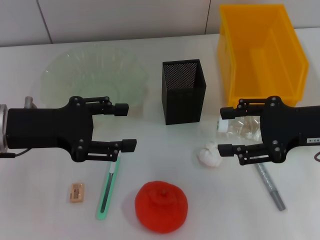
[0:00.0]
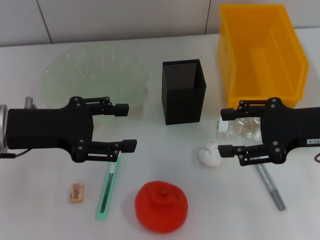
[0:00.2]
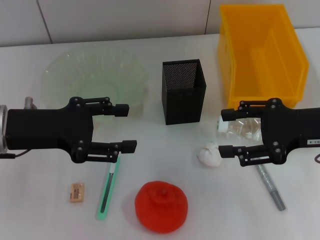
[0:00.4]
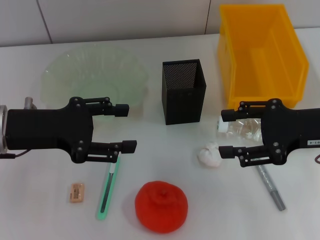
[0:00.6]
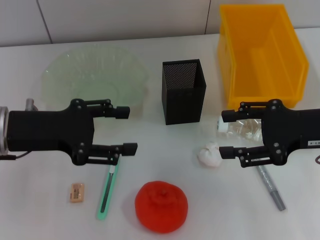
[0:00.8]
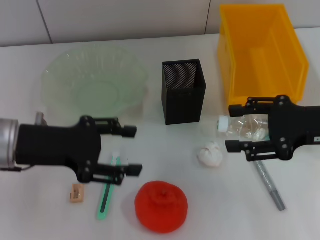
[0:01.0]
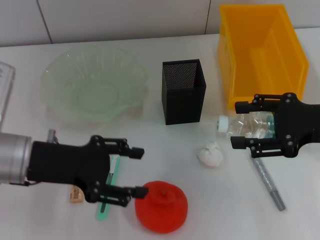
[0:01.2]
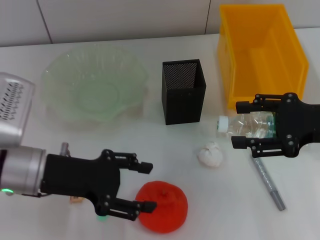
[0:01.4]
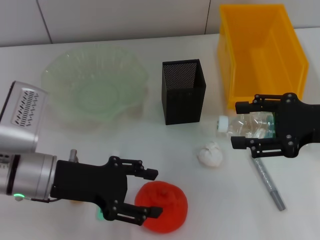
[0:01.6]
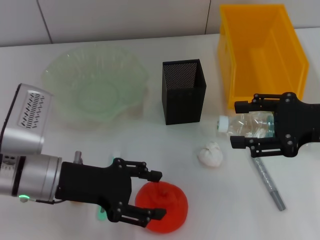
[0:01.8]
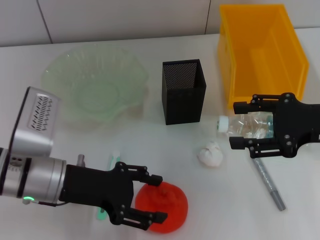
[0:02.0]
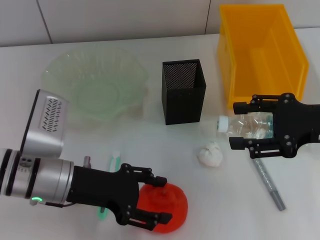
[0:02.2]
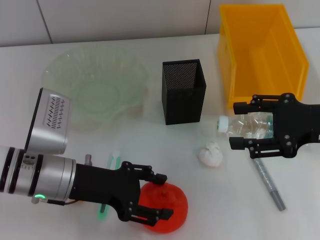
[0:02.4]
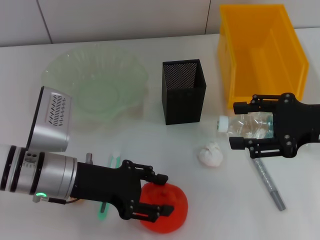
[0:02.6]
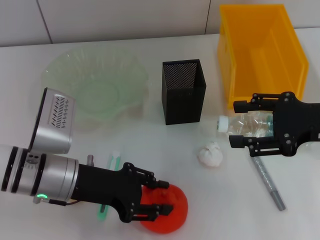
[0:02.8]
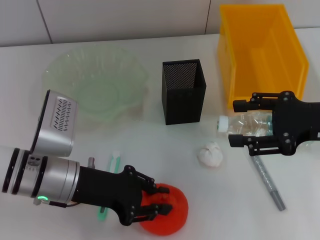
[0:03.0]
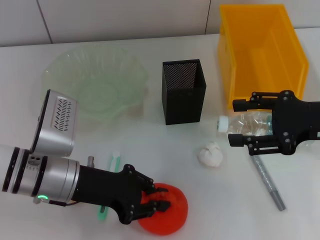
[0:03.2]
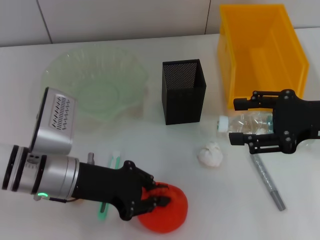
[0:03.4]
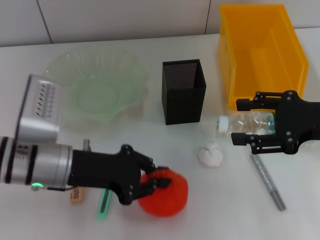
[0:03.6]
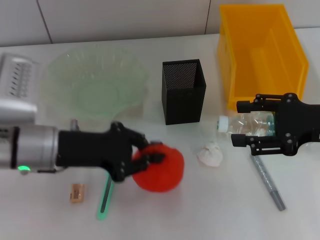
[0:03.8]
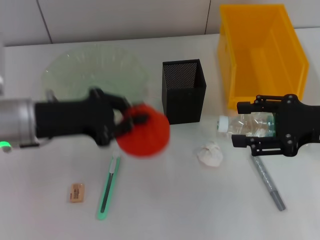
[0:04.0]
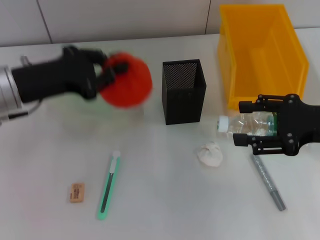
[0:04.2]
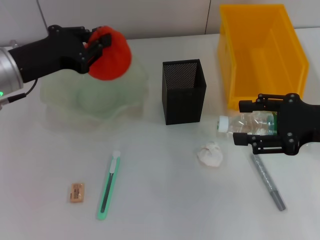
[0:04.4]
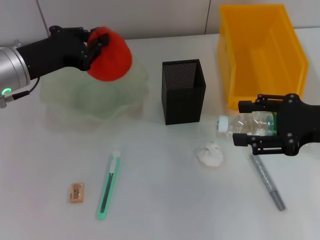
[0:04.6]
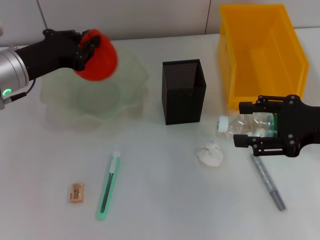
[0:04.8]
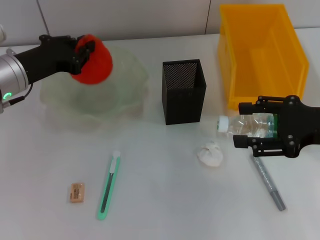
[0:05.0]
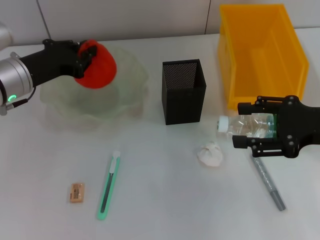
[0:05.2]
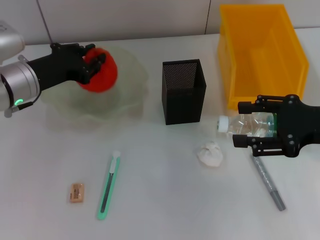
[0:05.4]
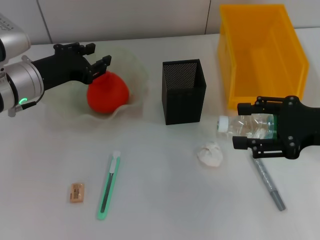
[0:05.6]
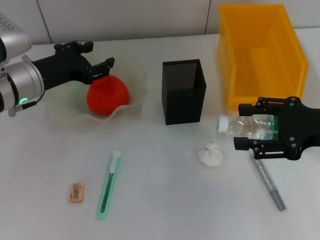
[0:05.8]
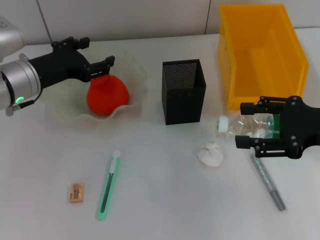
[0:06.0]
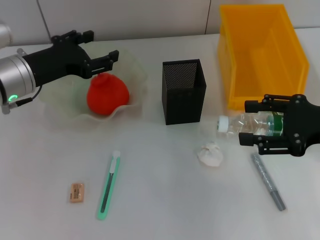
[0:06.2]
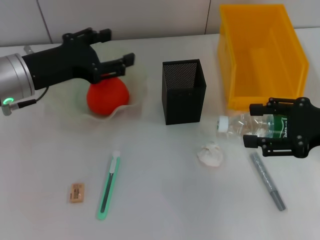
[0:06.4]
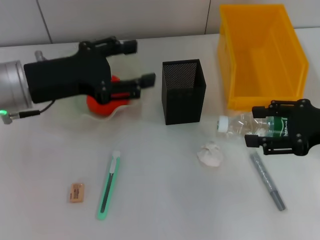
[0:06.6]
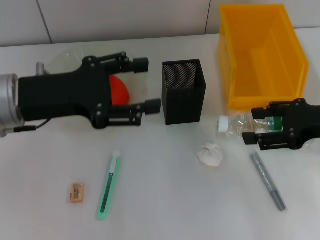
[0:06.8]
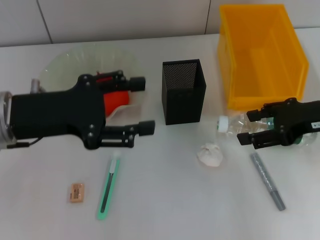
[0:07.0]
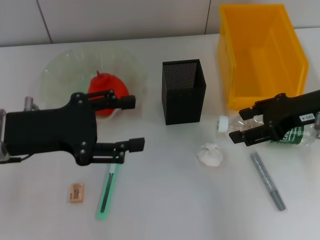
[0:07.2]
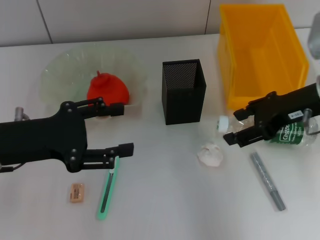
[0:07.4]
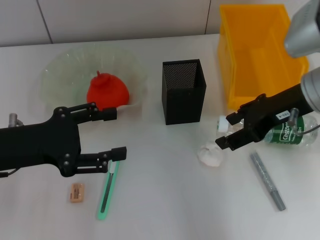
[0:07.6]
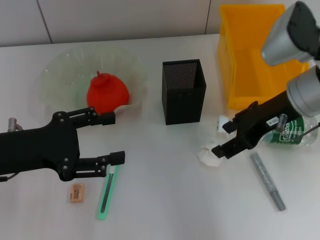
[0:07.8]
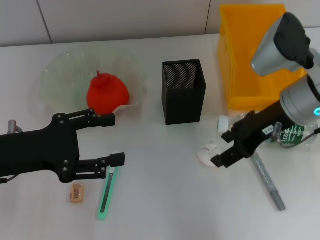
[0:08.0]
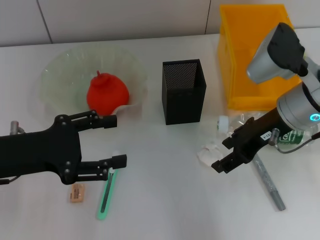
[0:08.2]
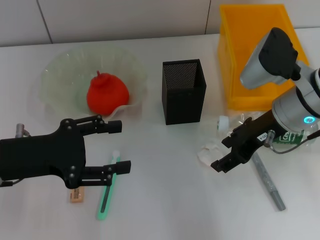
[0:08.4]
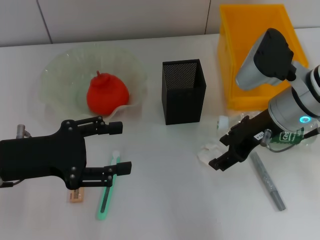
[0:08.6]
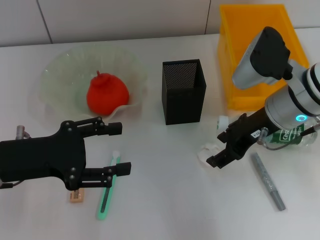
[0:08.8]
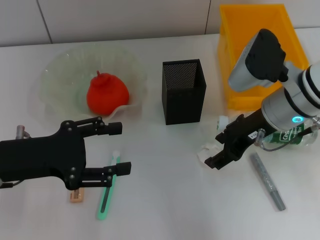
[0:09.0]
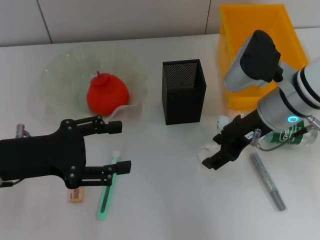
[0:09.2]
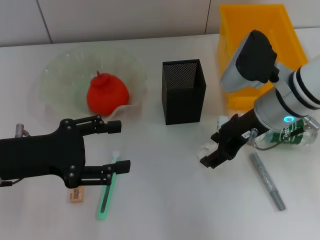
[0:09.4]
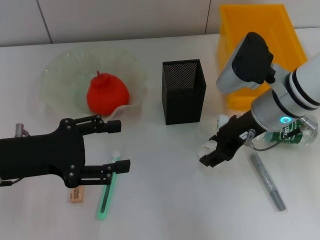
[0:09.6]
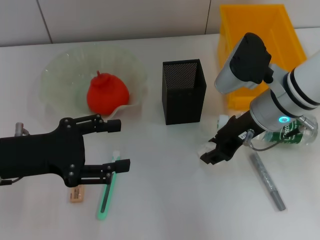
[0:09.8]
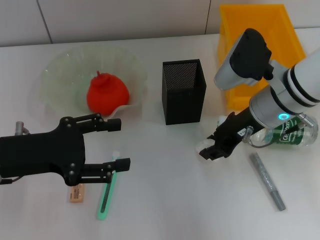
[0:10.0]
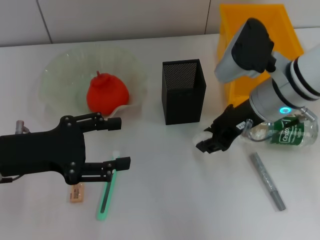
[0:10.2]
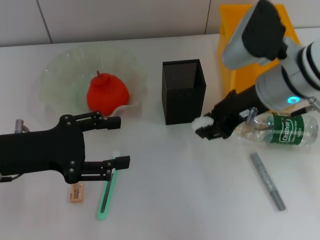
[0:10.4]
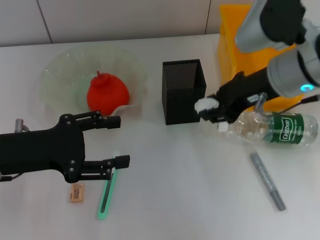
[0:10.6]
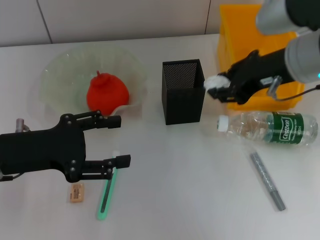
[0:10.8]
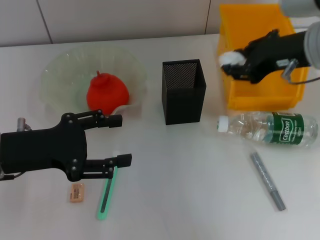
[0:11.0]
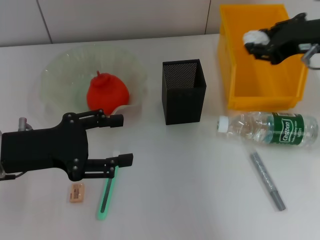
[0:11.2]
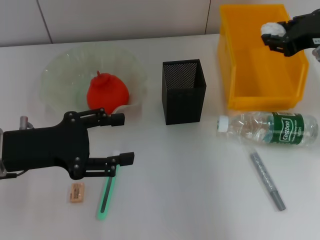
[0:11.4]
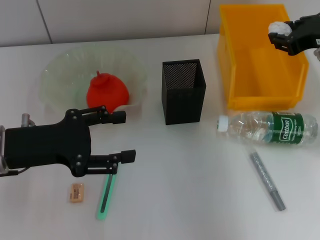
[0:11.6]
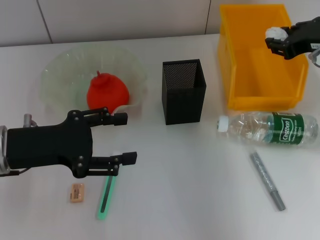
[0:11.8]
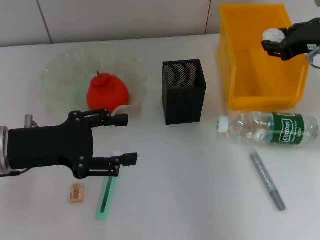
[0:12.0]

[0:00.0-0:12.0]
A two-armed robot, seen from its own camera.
Step, 0:00.0 to 0:03.0: Grab the orange with the left hand.
Step, 0:03.2 to 0:05.8: Place the orange into the fruit bowl with the left hand.
Step, 0:06.0 to 0:09.8: Grab the paper ball with the right hand.
0:00.0 to 0:01.6: The left gripper moves downward, approximately 5 cm.
0:01.6 to 0:03.0: The left gripper closes up.
0:03.0 to 0:04.4: The left gripper heads upward, forward and to the left, covering about 10 cm, and closes its fingers.
0:04.4 to 0:06.0: The left gripper opens.
0:06.0 to 0:07.6: The right gripper shifts approximately 10 cm forward and to the left; the left gripper travels backward by some 10 cm.
0:07.6 to 0:09.0: The right gripper changes place by about 5 cm.
0:09.0 to 0:10.4: The right gripper closes.
0:10.4 to 0:12.0: The right gripper moves to the right, approximately 10 cm.

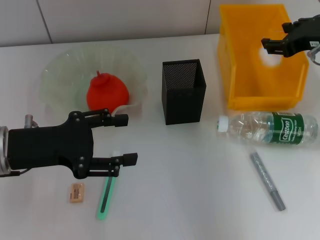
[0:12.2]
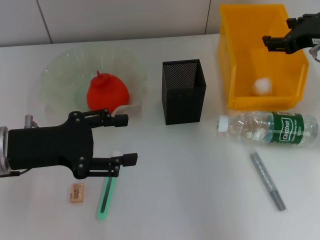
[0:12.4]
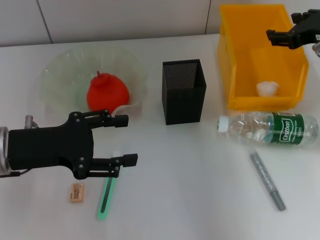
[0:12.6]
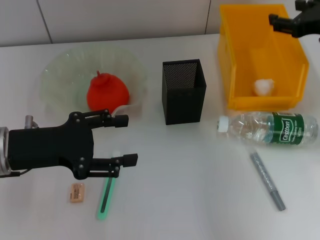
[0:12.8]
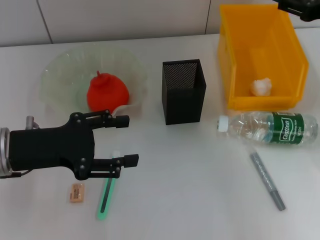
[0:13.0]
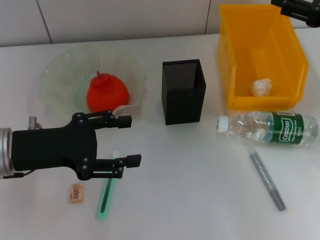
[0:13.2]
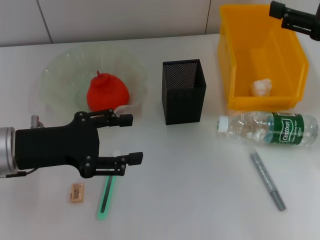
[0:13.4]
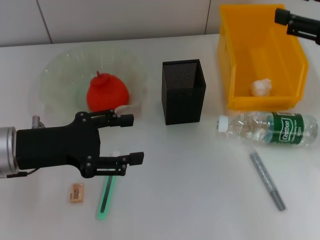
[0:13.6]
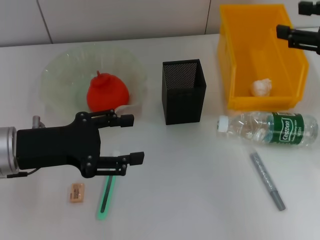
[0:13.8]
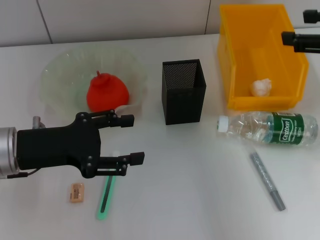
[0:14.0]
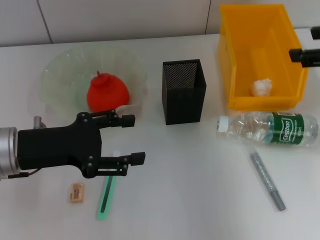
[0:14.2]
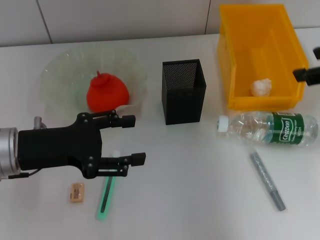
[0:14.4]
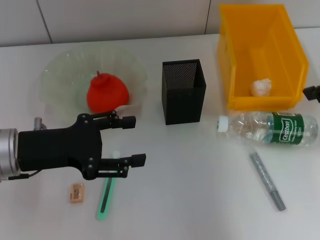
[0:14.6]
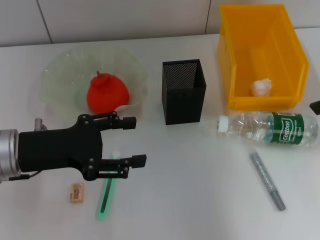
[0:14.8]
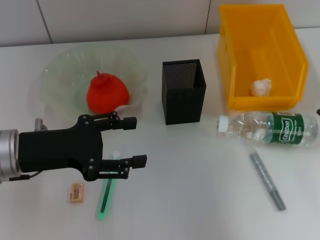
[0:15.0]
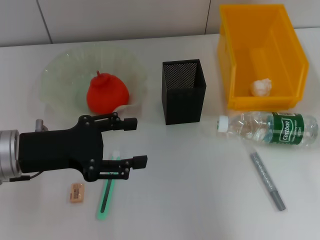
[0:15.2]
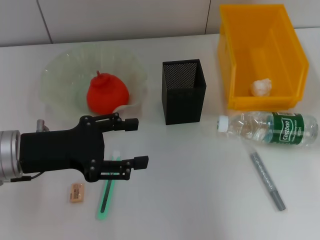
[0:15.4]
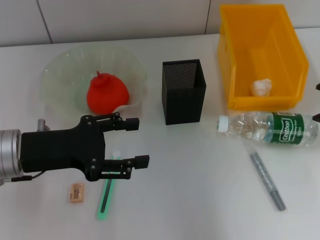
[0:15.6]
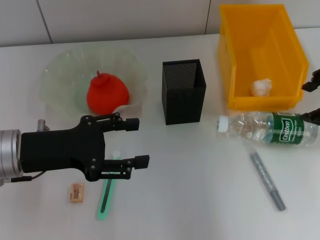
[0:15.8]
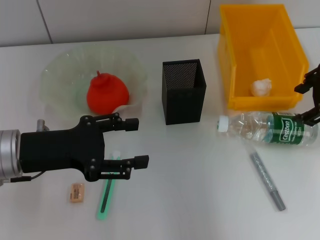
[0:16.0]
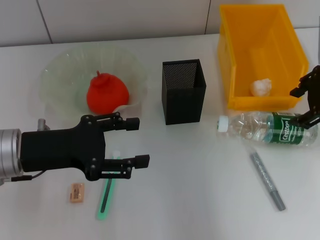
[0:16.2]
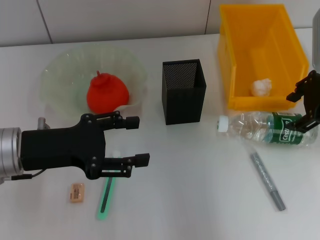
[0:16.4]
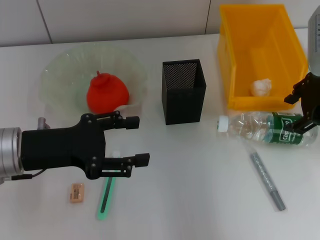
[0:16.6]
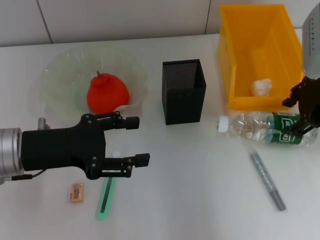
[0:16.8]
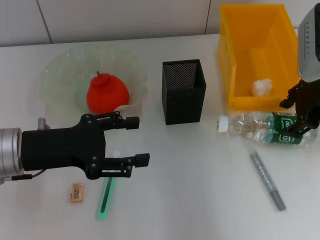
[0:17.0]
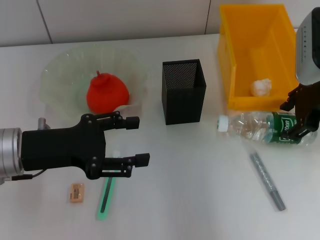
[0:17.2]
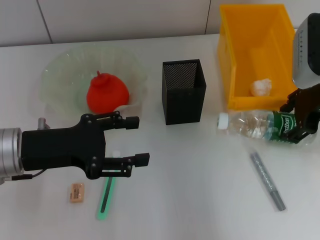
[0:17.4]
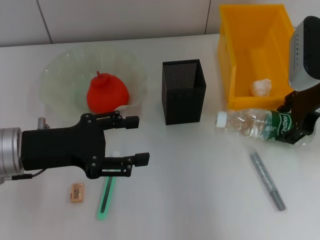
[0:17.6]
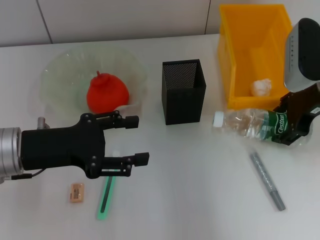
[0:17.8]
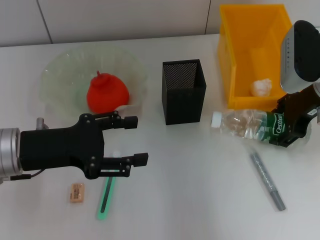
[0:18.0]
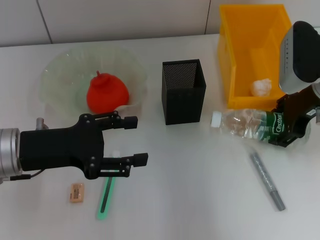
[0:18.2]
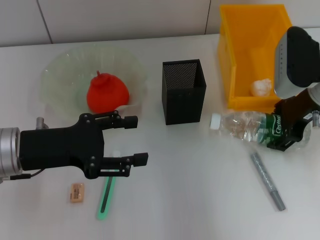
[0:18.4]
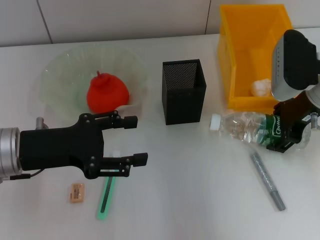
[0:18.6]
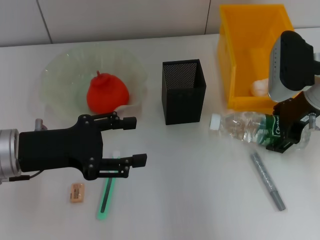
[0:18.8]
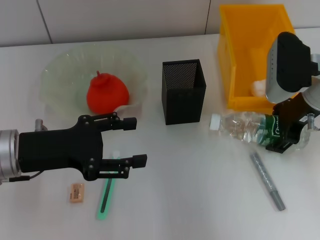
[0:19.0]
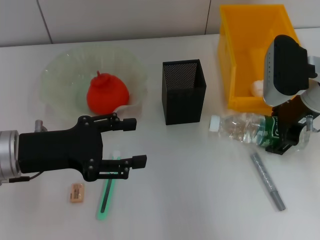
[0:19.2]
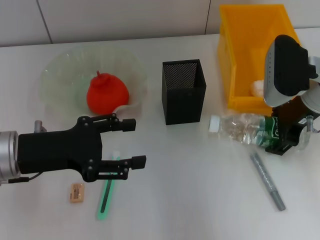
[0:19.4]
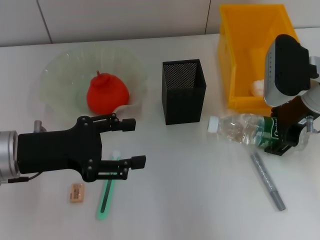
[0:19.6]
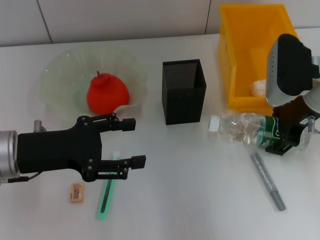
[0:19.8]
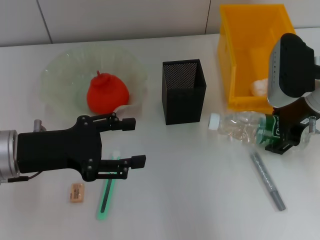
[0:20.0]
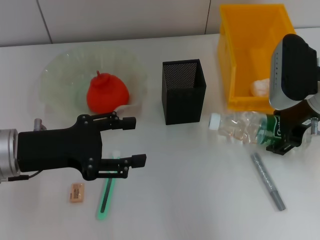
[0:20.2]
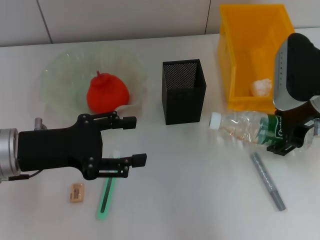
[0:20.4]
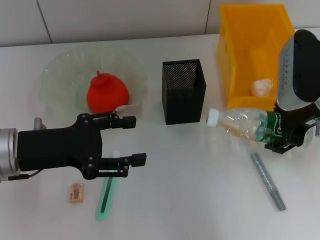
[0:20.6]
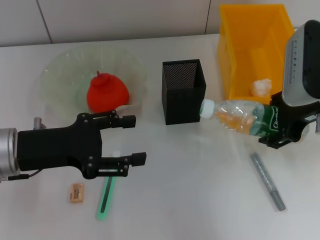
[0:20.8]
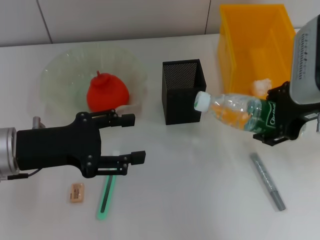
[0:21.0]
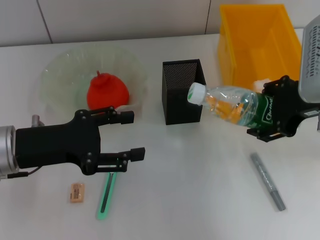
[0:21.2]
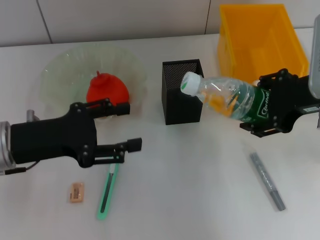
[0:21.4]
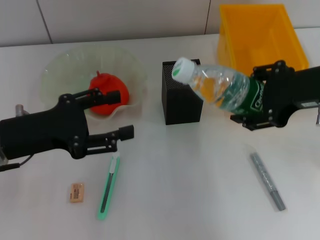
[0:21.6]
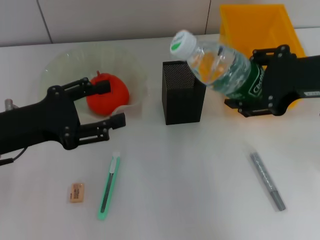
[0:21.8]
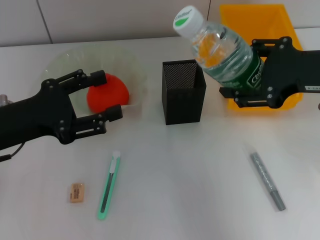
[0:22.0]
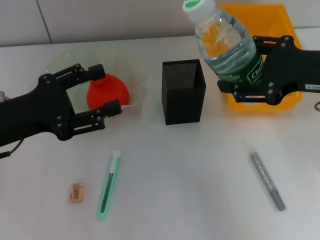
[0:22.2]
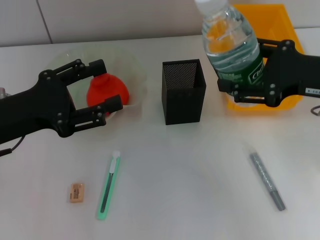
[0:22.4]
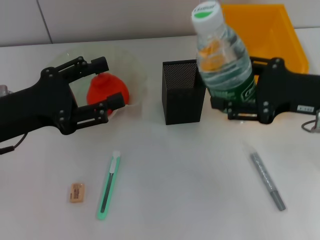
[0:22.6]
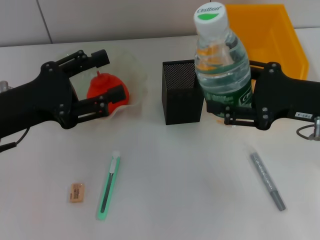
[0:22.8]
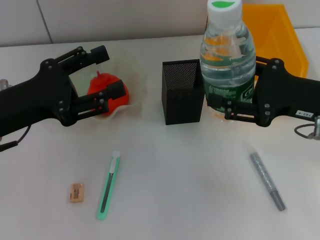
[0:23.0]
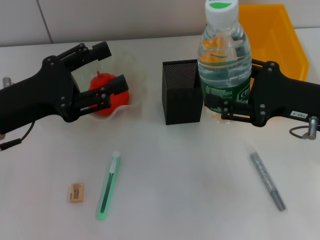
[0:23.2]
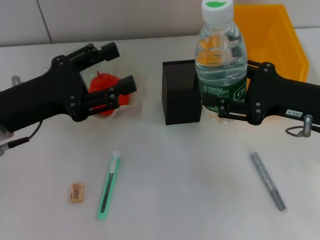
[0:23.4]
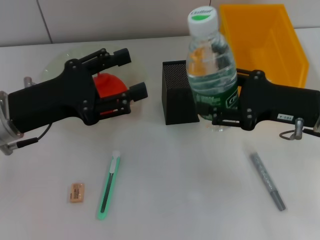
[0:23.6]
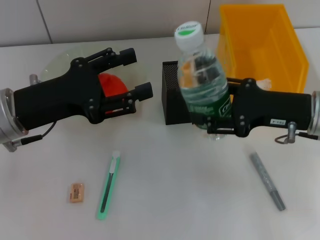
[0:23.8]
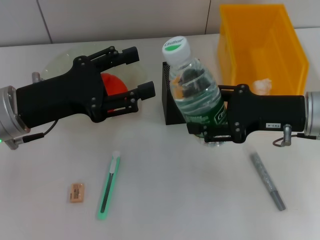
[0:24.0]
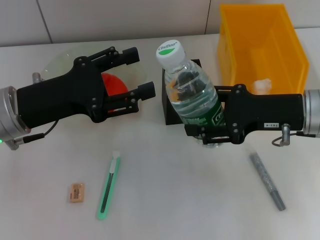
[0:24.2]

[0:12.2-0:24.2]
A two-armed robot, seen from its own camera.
Step, 0:13.0 to 0:20.0: Grab the water bottle with the right hand.
0:12.2 to 0:13.8: The right gripper goes about 5 cm backward, and opens its fingers.
0:15.2 to 0:16.6: The right gripper goes some 10 cm downward and forward.
0:16.6 to 0:18.2: The grippers move only a little.
0:18.2 to 0:19.8: There are only small adjustments of the grippers.
0:19.8 to 0:21.2: The right gripper moves upward and backward, roughly 10 cm.
0:21.2 to 0:22.6: The right gripper shifts by some 5 cm.
